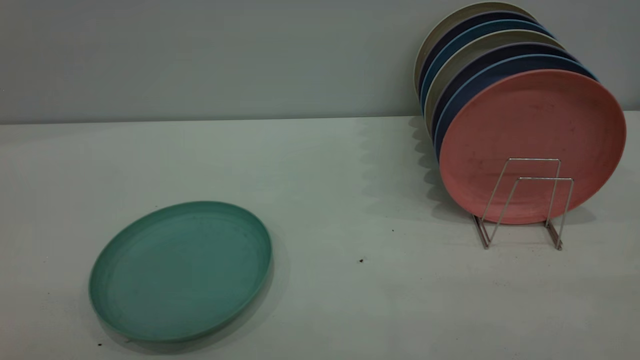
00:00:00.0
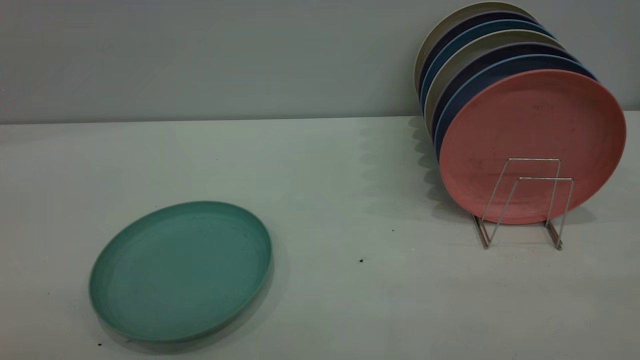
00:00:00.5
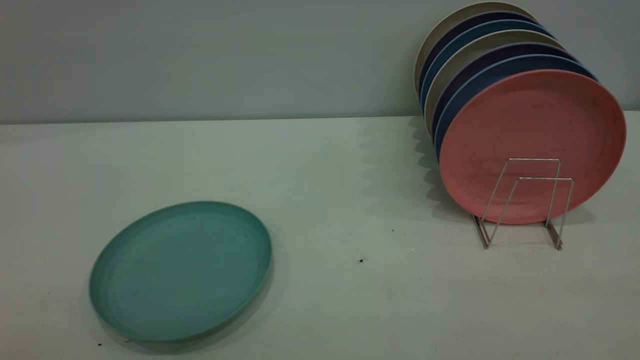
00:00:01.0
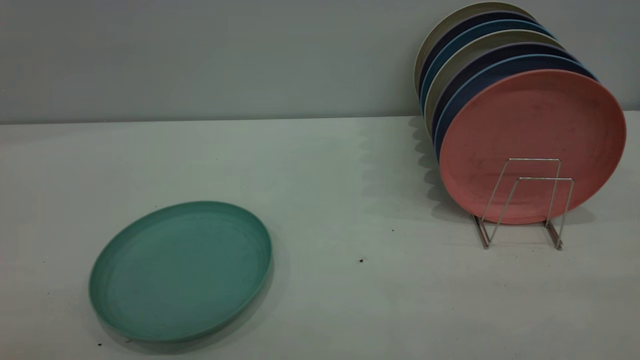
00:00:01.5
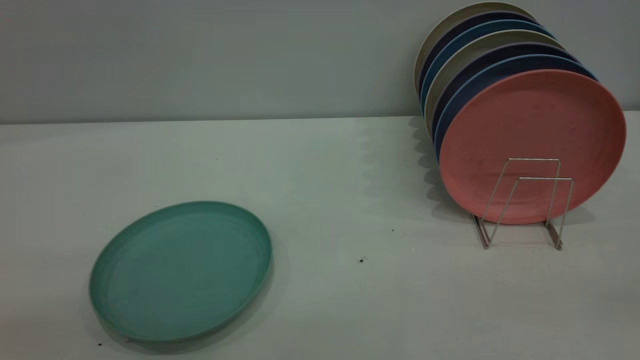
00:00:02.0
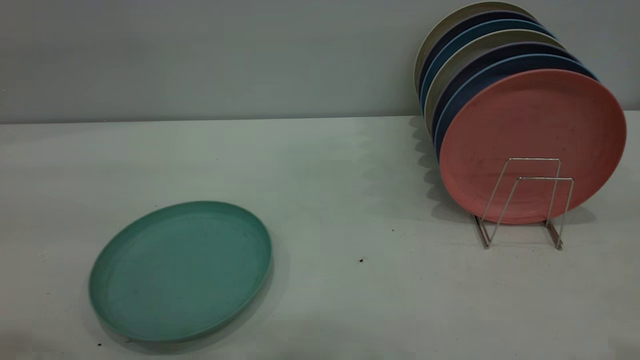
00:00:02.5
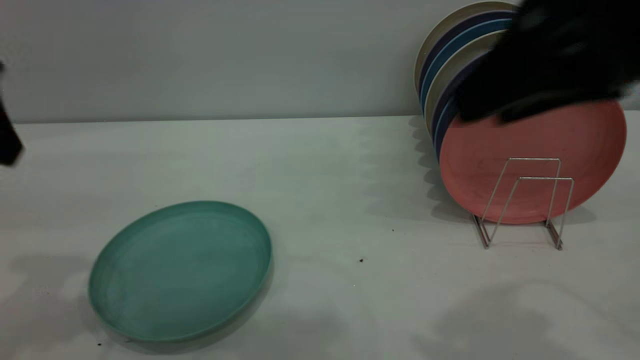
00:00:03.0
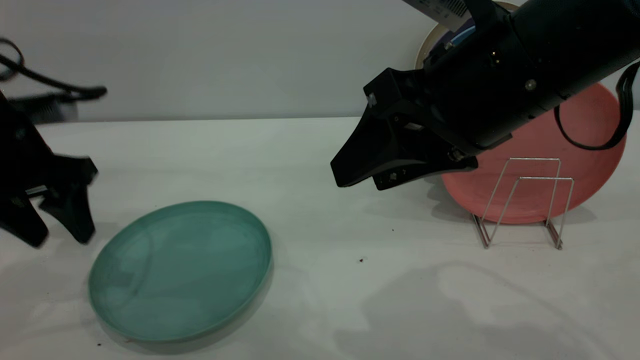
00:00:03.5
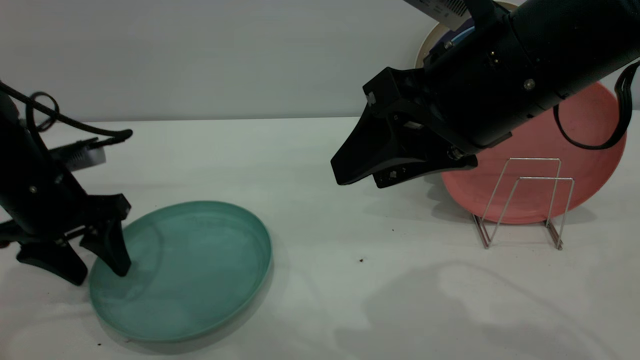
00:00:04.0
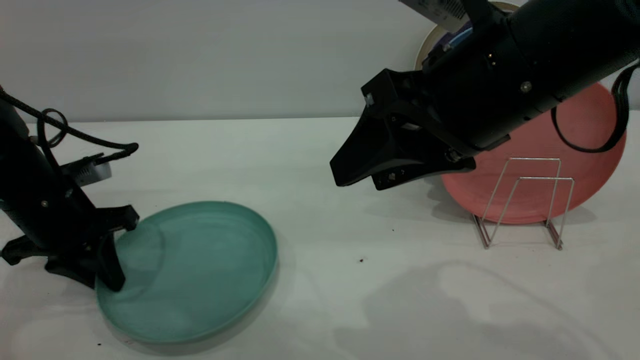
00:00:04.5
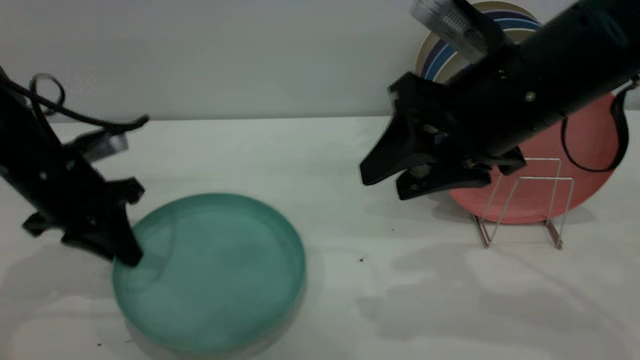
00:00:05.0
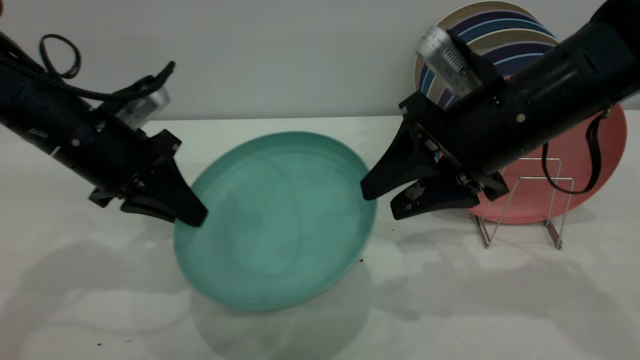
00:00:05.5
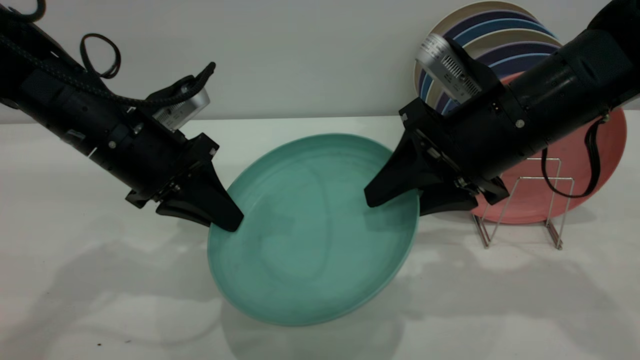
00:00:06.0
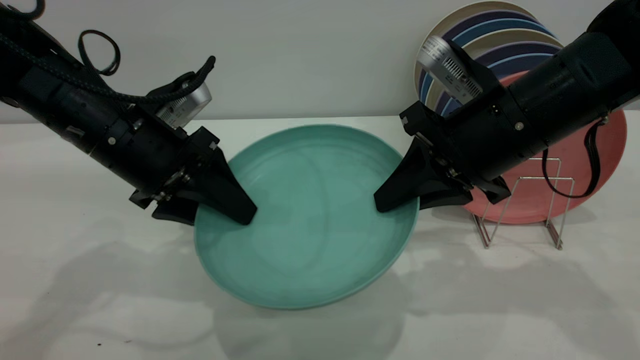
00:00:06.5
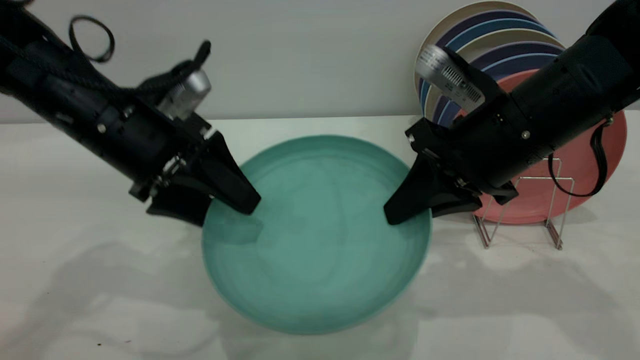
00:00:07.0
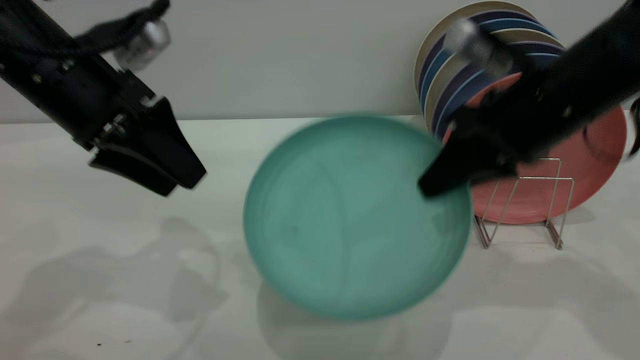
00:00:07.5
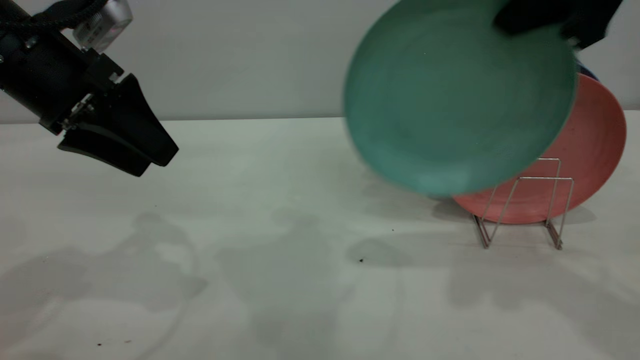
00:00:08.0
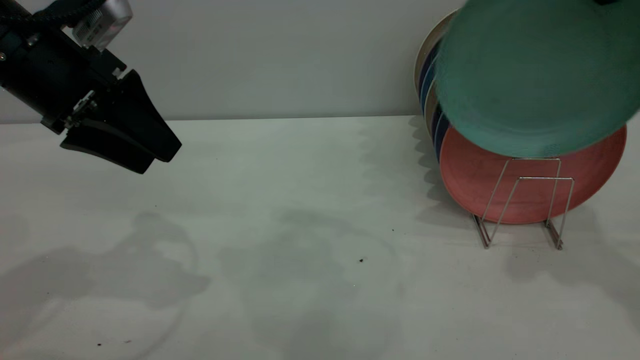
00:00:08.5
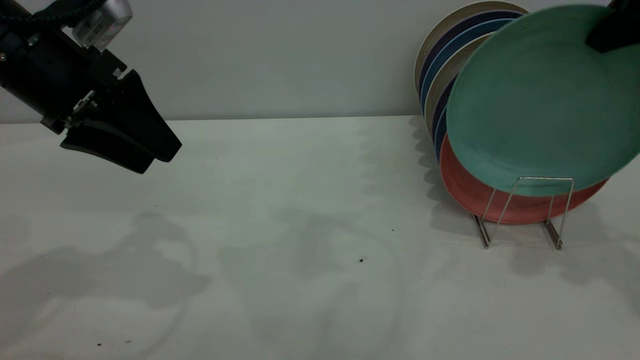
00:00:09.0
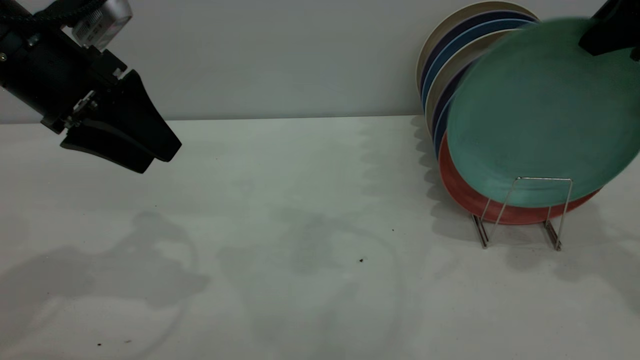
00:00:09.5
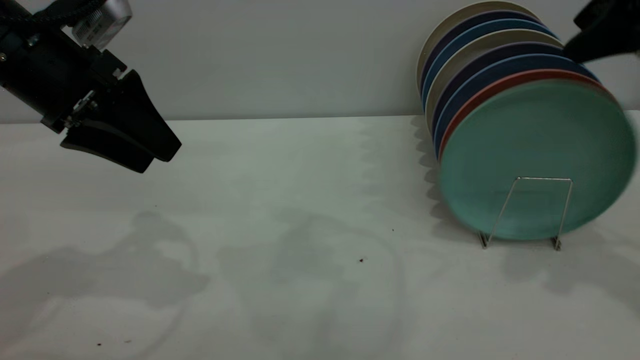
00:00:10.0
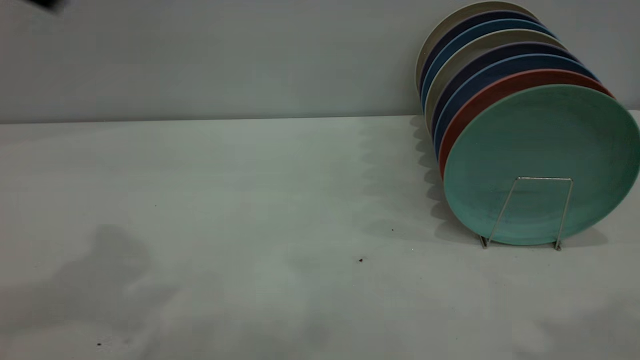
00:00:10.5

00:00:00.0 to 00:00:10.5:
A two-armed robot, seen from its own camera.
Task of the whole recording: the left gripper grasp the green plate, the left gripper pass the green plate to the right gripper, and the right gripper place the green plate on the plate rack.
Step, 00:00:00.0 to 00:00:05.0: Pick up the plate with the left gripper.
Step, 00:00:05.5 to 00:00:07.5: Pass the plate from the left gripper to the right gripper.
Step, 00:00:08.0 to 00:00:10.0: Place the plate on the shelf.
00:00:02.0 to 00:00:04.0: The left gripper shifts roughly 40 cm forward and downward, while the right gripper goes about 30 cm forward, to the left and downward.
00:00:04.0 to 00:00:06.5: The right gripper shifts approximately 10 cm downward and forward, and closes its fingers; the left gripper is displaced to the right by some 10 cm, and closes, then opens again.
00:00:06.5 to 00:00:08.5: The left gripper is displaced upward by about 10 cm, while the right gripper heads upward and to the right, covering approximately 20 cm.
00:00:08.5 to 00:00:10.5: The left gripper is displaced upward by approximately 15 cm. Meanwhile the right gripper moves backward and upward, approximately 20 cm, and opens its fingers.

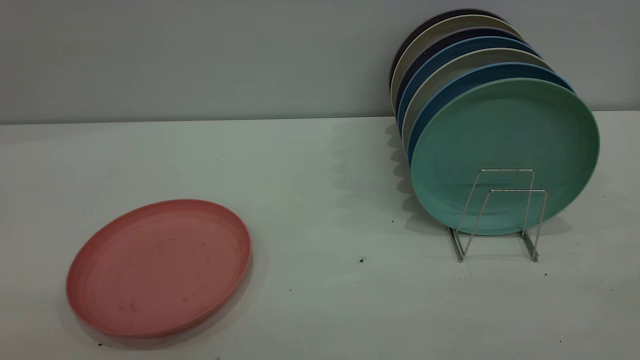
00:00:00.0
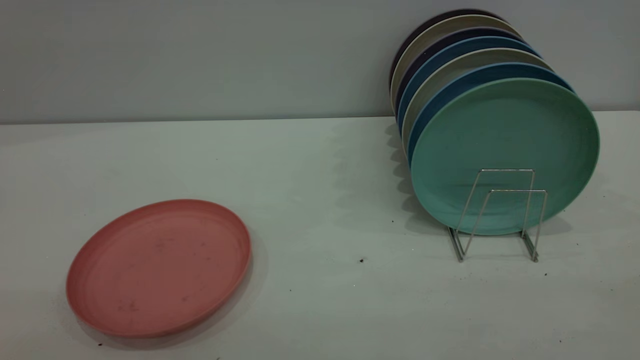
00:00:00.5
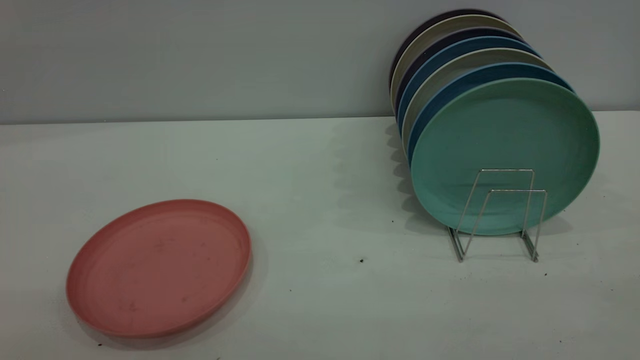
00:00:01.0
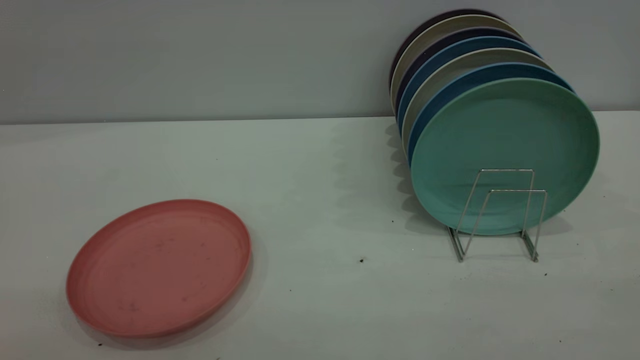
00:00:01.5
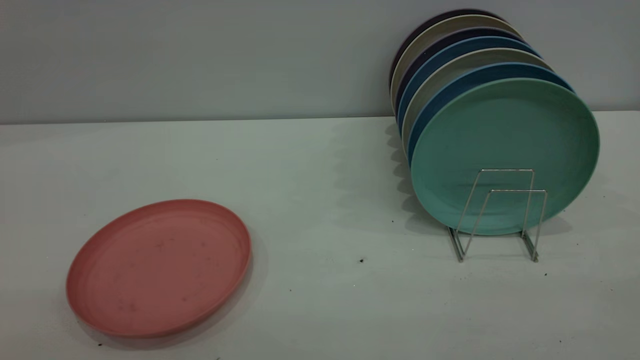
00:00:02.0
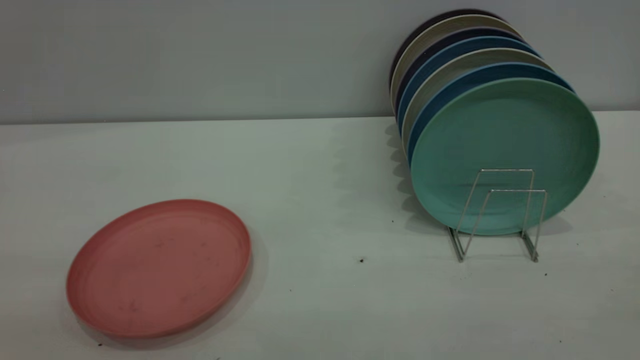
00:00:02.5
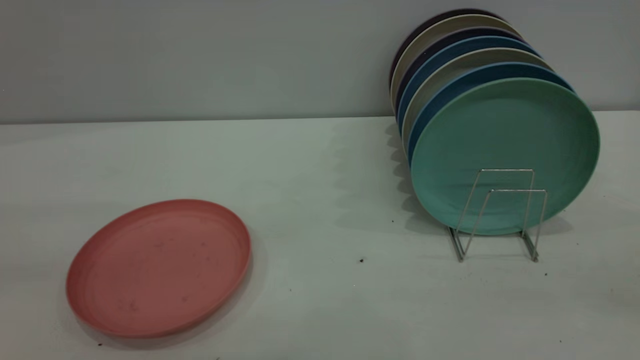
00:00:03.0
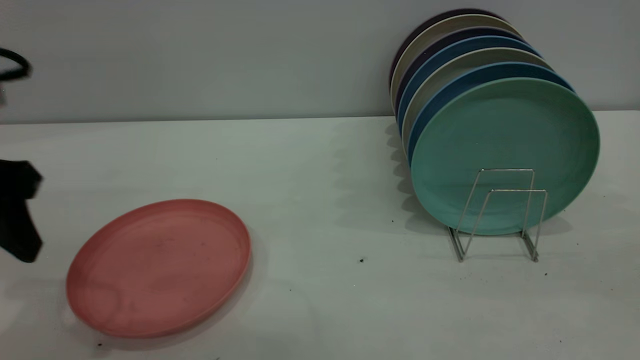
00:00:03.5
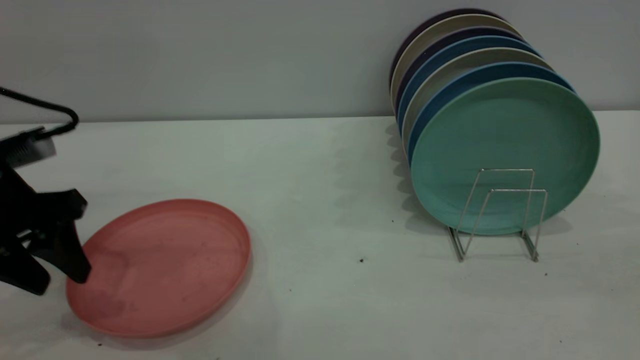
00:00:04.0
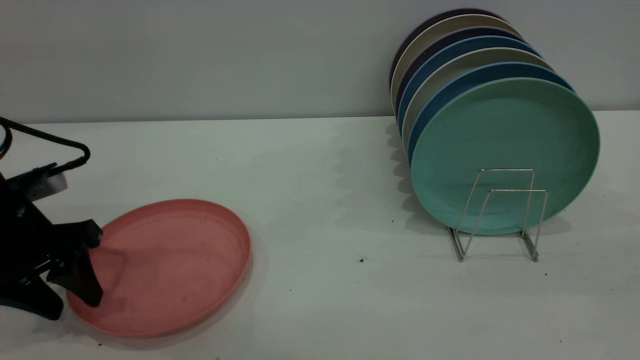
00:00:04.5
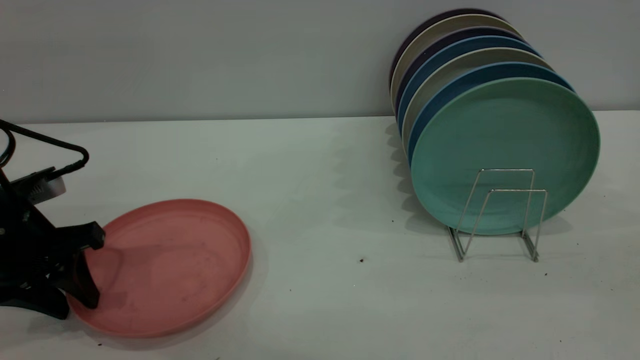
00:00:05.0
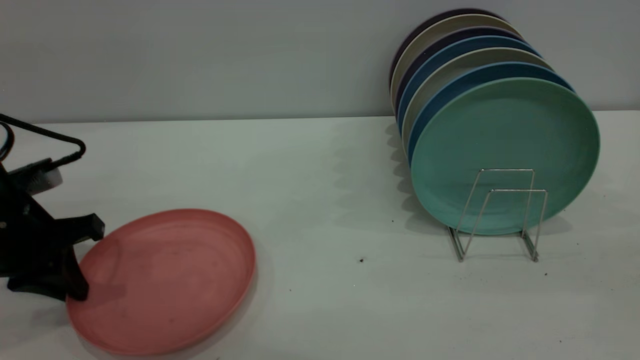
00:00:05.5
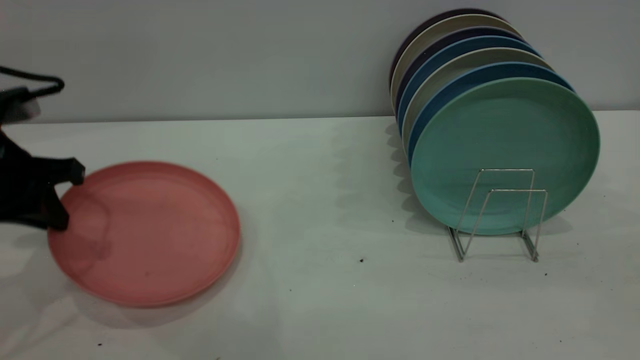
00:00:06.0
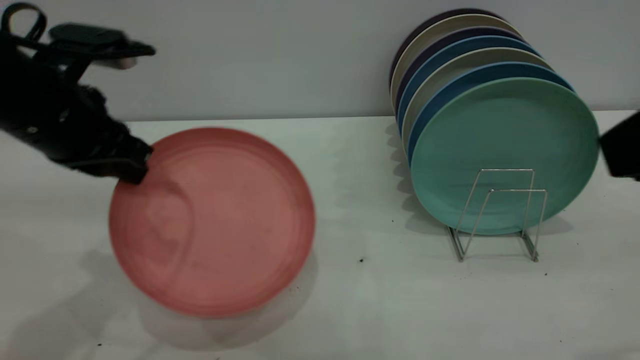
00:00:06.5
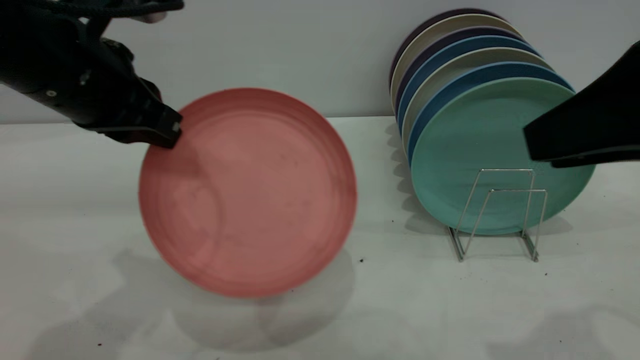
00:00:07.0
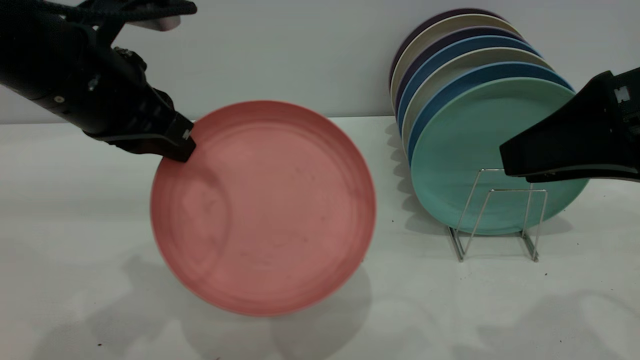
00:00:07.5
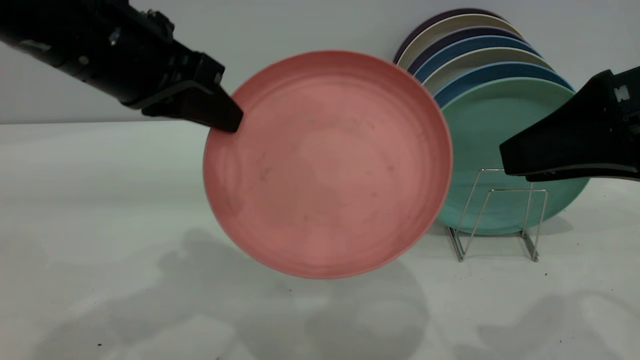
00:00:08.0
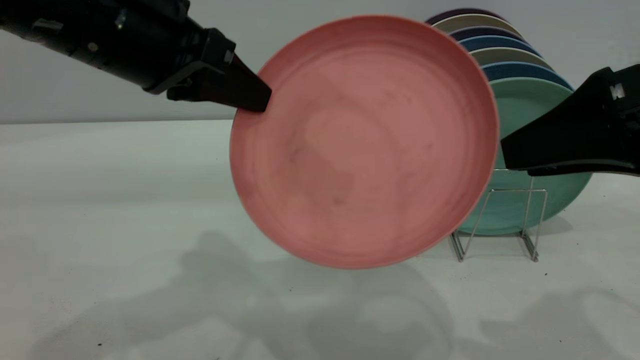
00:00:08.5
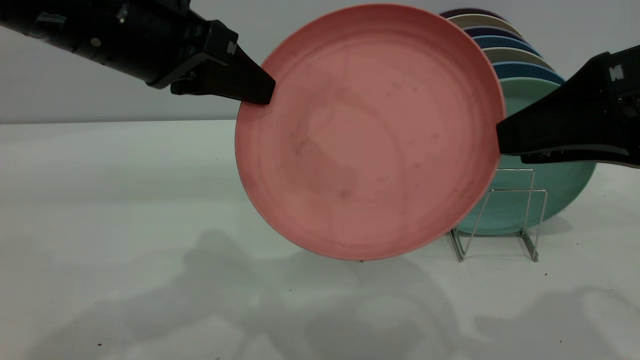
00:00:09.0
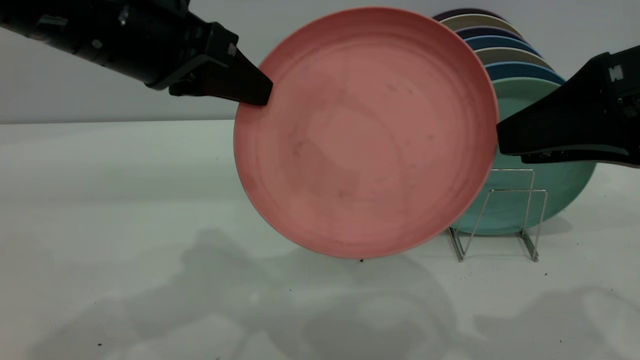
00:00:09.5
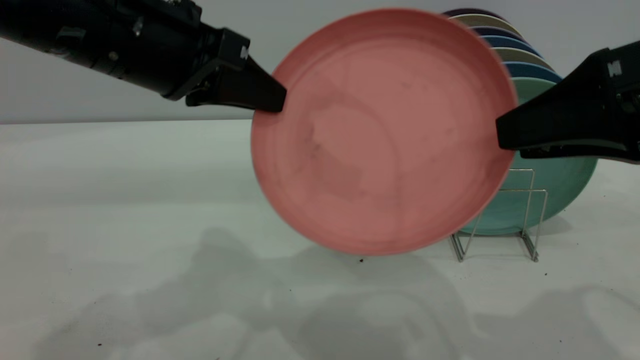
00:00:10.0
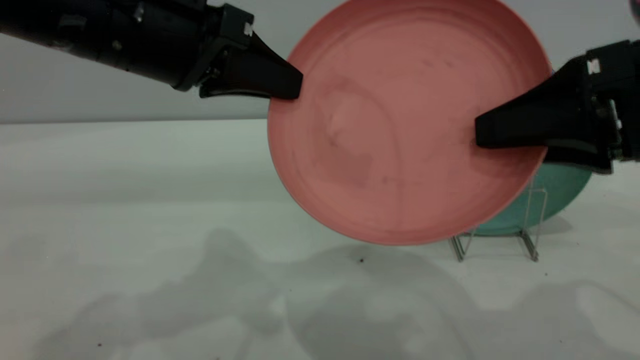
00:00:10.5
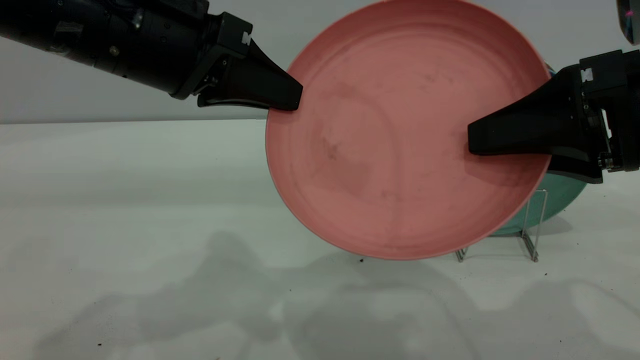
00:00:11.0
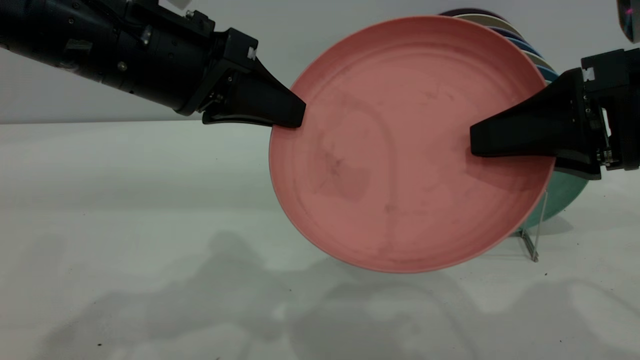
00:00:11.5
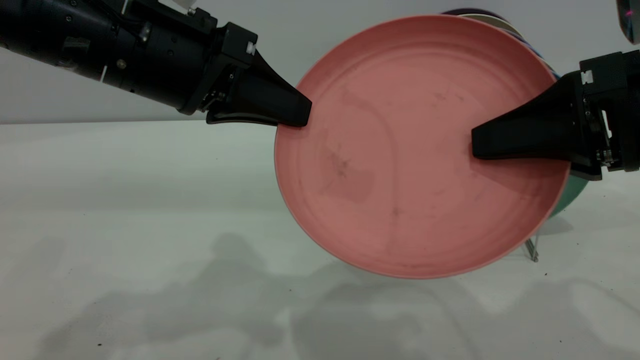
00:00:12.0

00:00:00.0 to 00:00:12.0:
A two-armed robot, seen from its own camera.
Task of the whole recording: put the plate on the plate rack.
Step, 00:00:00.0 to 00:00:06.5: Pick up the plate with the left gripper.
00:00:00.0 to 00:00:02.0: Both grippers stay put.
00:00:02.0 to 00:00:04.0: The left gripper travels forward and downward by approximately 35 cm.
00:00:04.0 to 00:00:06.0: The left gripper closes up.
00:00:06.0 to 00:00:08.0: The right gripper shifts some 15 cm forward and downward. The left gripper shifts some 20 cm to the right and upward.
00:00:10.0 to 00:00:12.0: The right gripper closes up.
